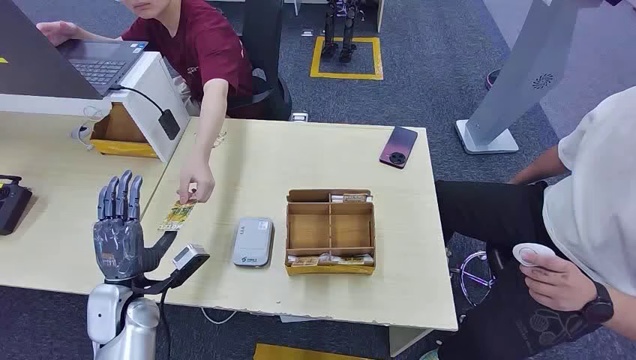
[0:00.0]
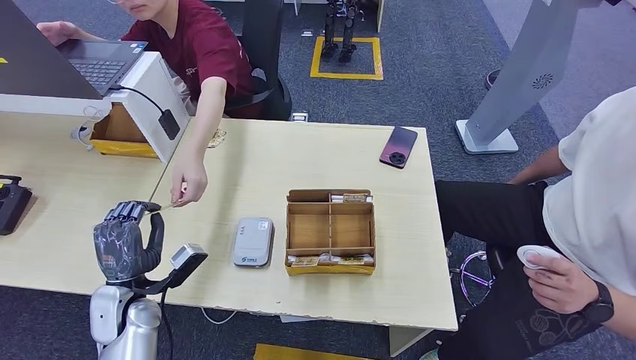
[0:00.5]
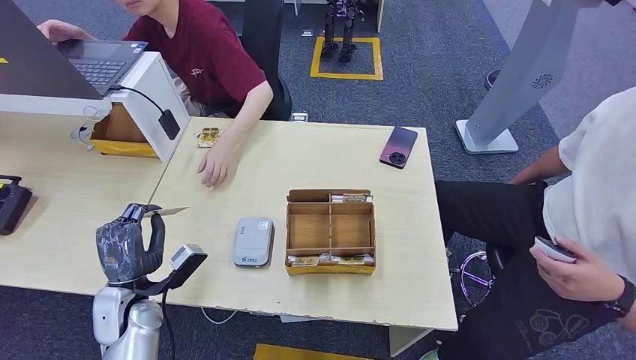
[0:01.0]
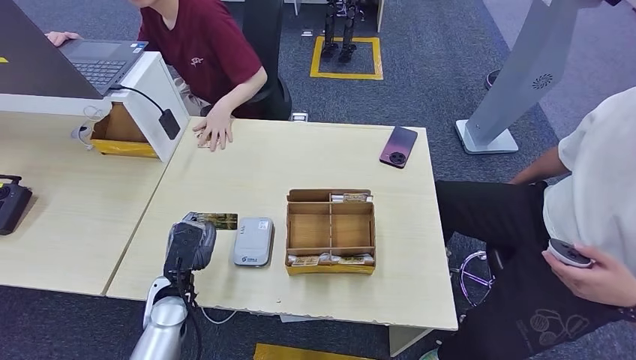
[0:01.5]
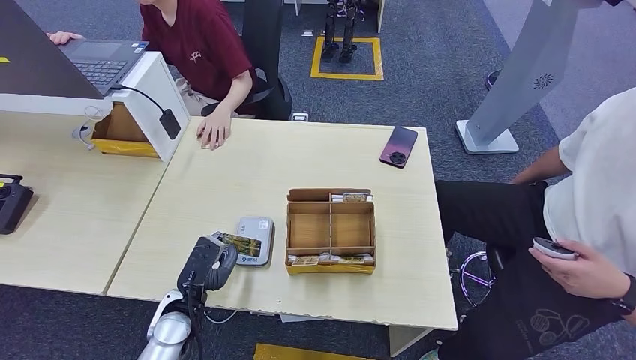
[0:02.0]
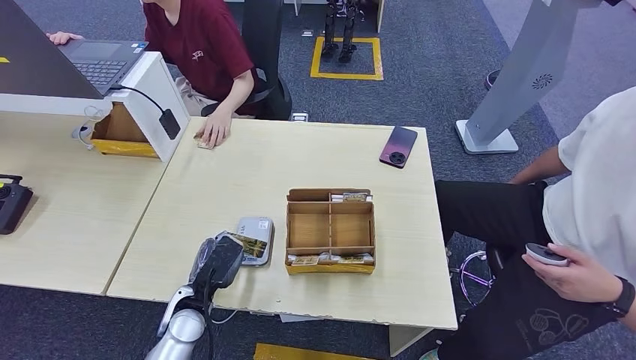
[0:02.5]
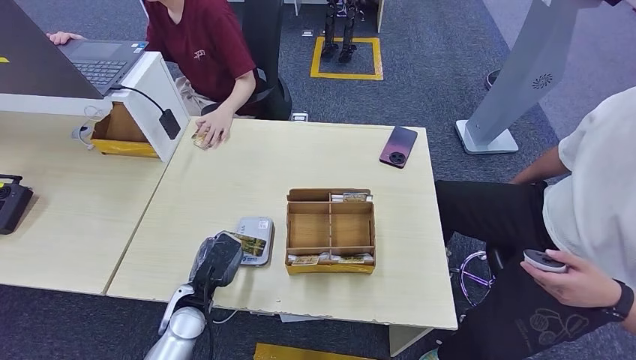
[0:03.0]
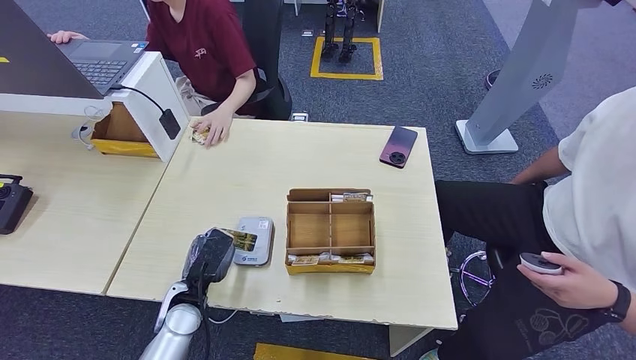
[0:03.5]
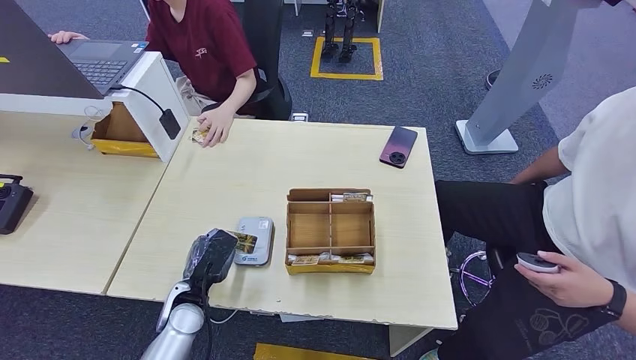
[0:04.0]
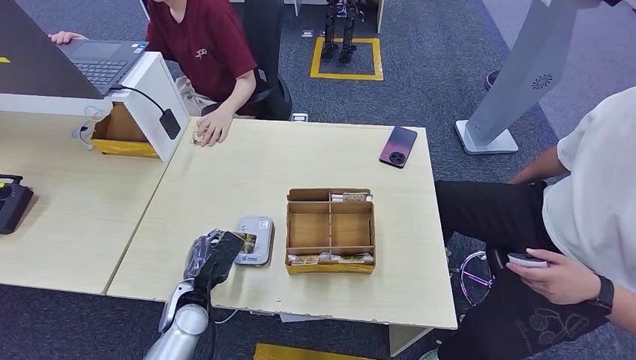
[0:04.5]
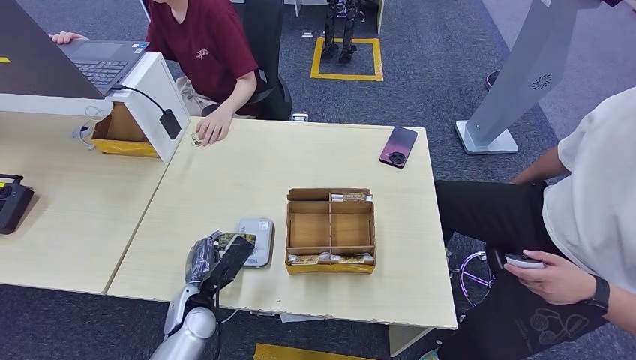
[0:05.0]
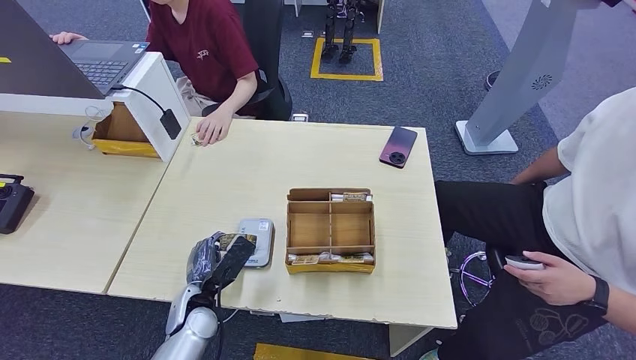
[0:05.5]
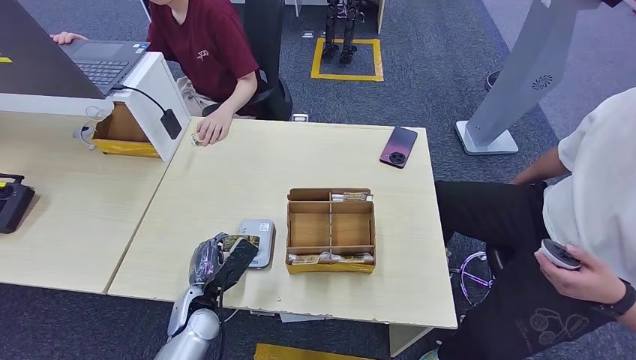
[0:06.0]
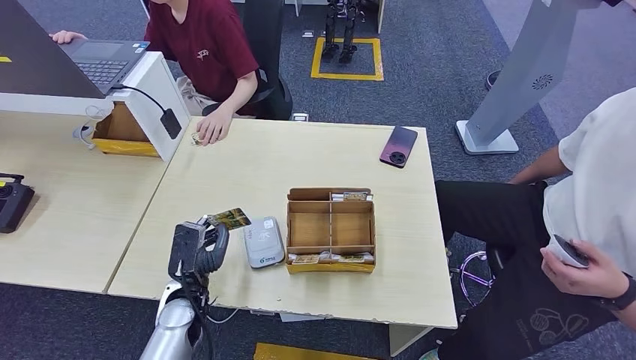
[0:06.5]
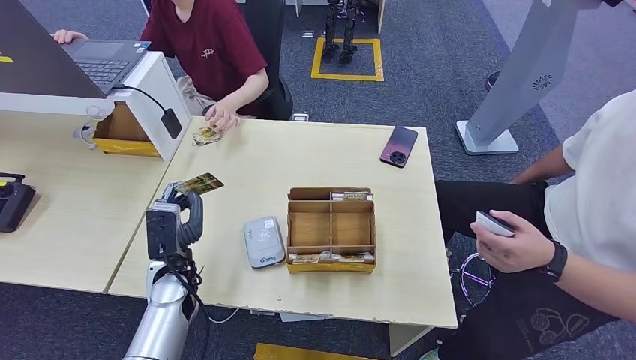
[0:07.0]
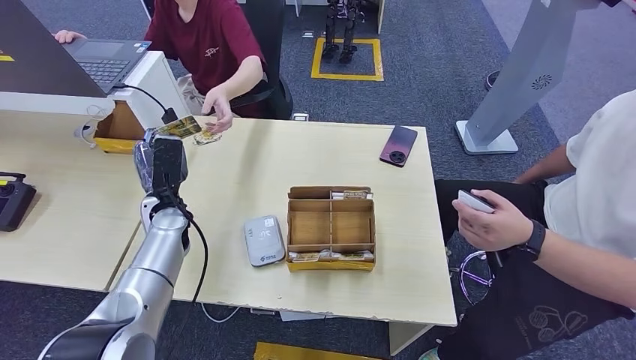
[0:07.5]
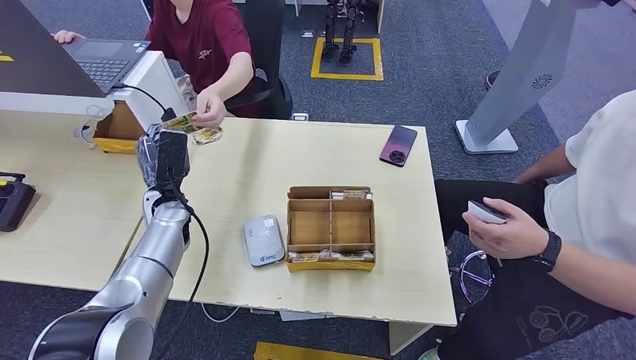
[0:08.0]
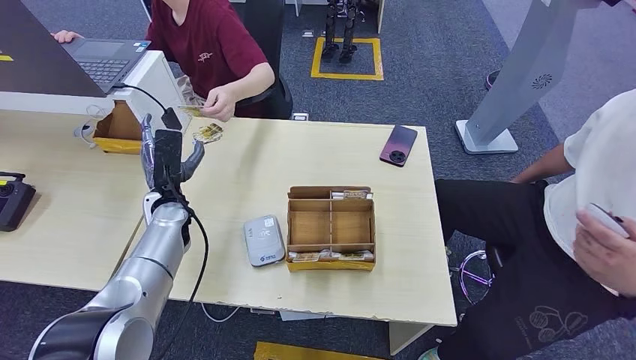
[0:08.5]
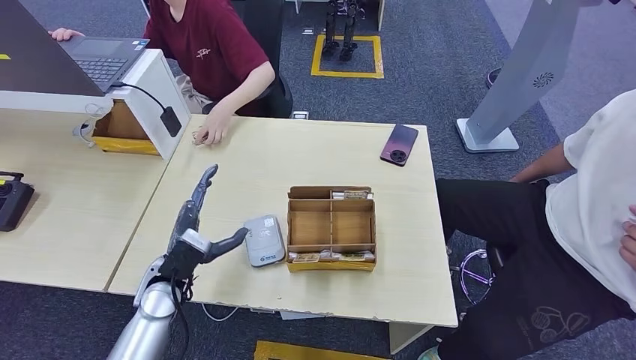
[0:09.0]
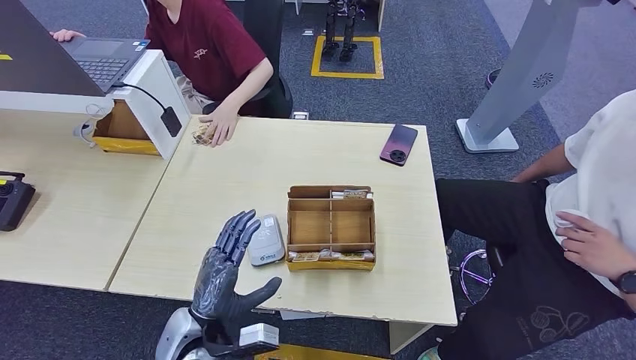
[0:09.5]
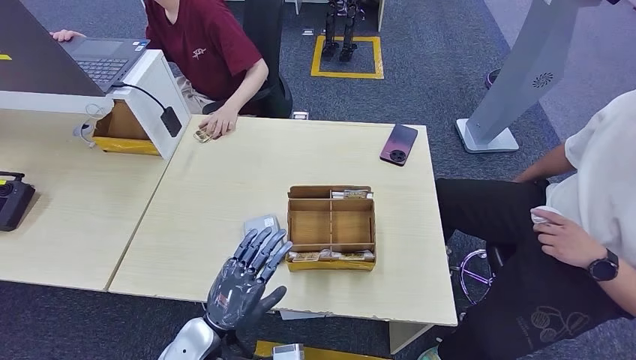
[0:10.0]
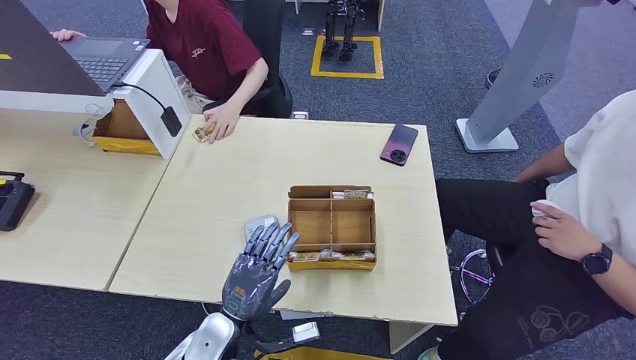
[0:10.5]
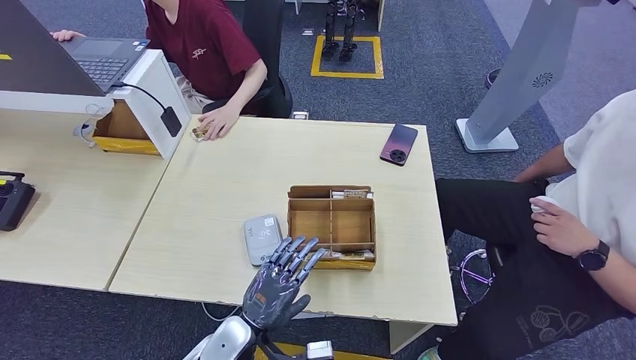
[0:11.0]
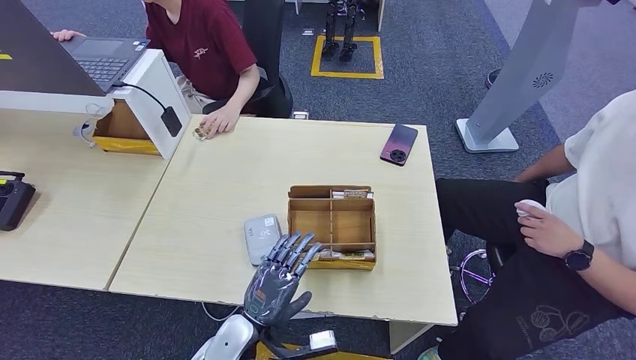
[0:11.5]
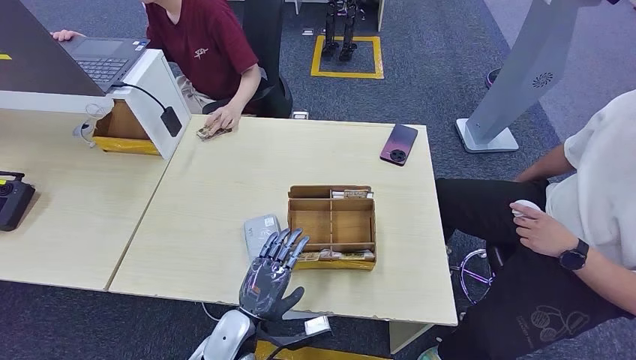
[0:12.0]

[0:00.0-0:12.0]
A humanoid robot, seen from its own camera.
Step, 0:00.0 to 0:00.5: Take the ID card from the person's hand.
Step, 0:01.5 to 0:04.0: Place the ID card on the card reader.
Step, 0:04.5 to 0:08.5: Hand the ID card to the person.
0:02.0 to 0:04.0: The hands move only a little.
0:04.0 to 0:06.0: The hands make only small movements.
0:06.0 to 0:08.0: The left hand travels forward, upward and to the left by some 20 cm.
0:08.0 to 0:10.0: The left hand goes about 25 cm backward and to the right.
0:10.0 to 0:12.0: The left hand changes place by roughly 5 cm.

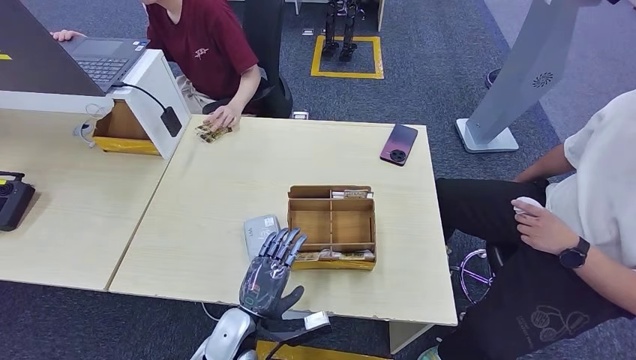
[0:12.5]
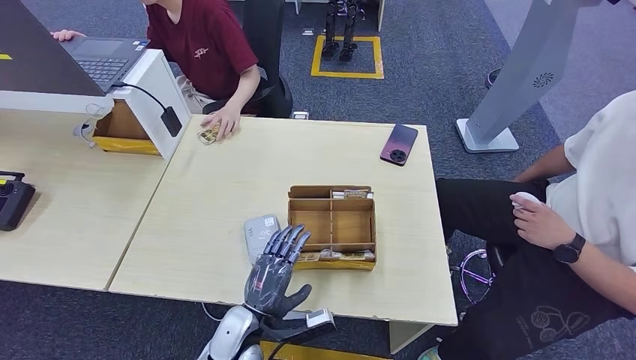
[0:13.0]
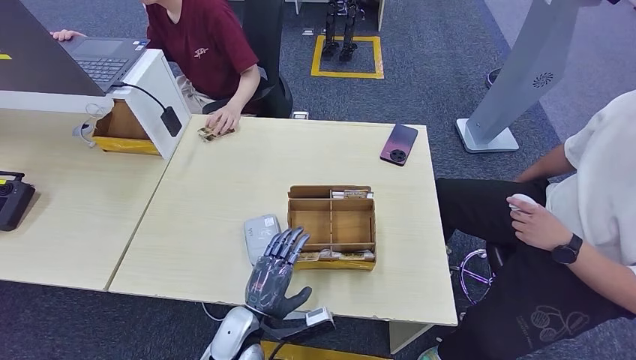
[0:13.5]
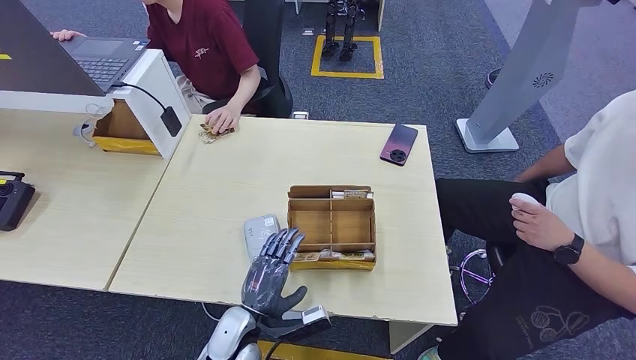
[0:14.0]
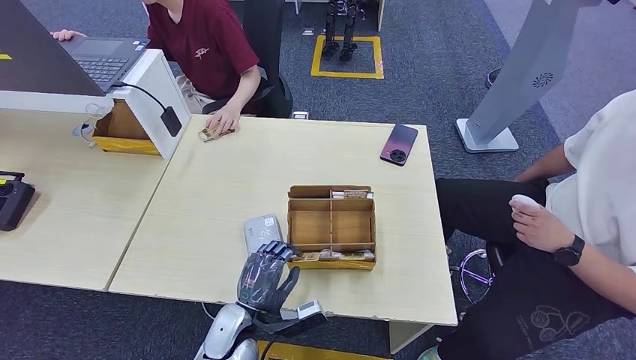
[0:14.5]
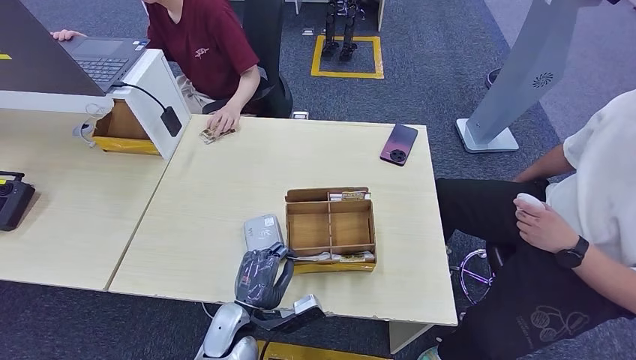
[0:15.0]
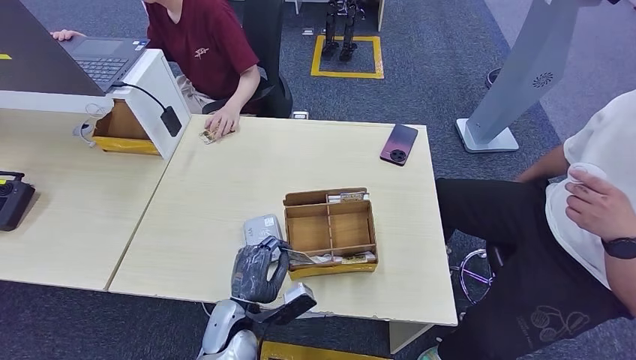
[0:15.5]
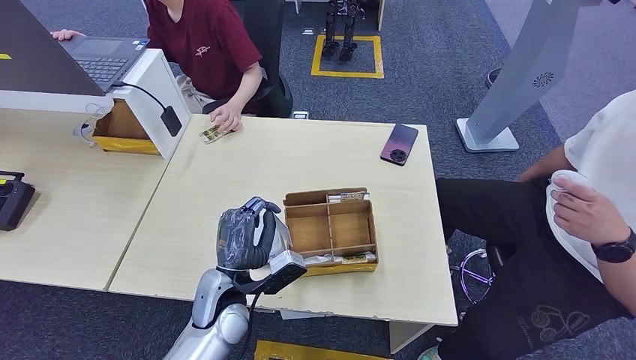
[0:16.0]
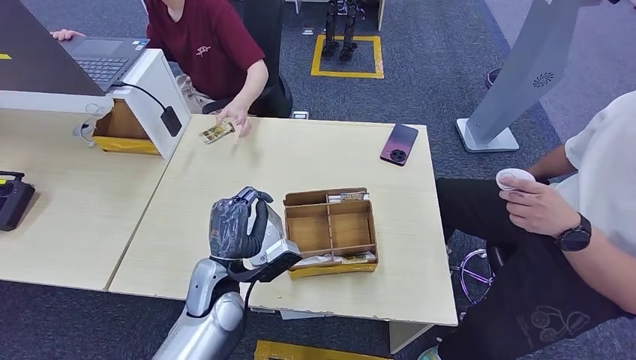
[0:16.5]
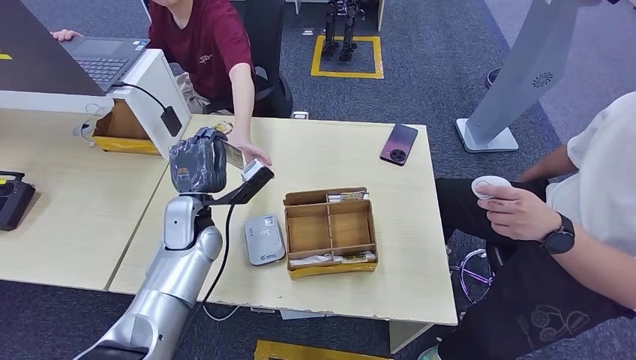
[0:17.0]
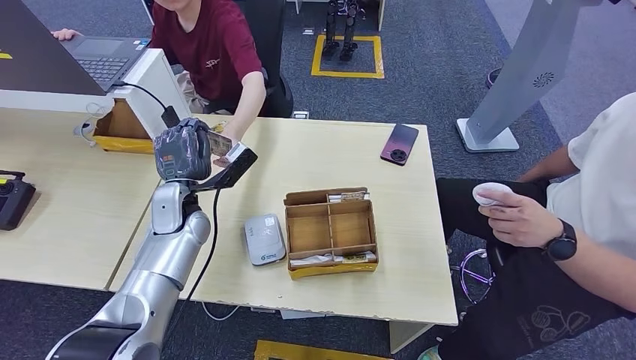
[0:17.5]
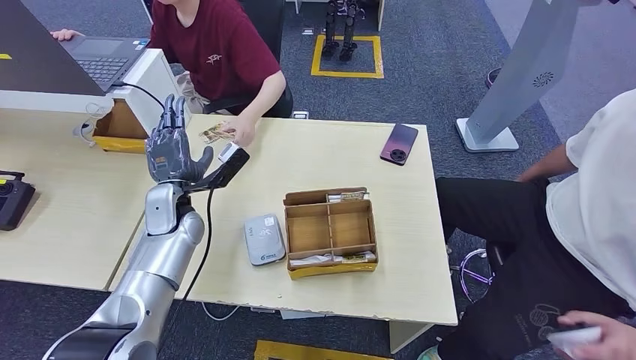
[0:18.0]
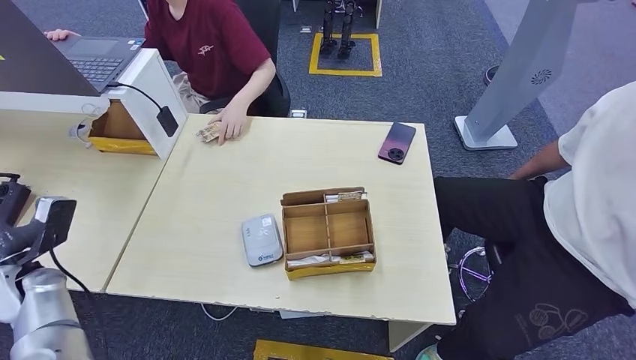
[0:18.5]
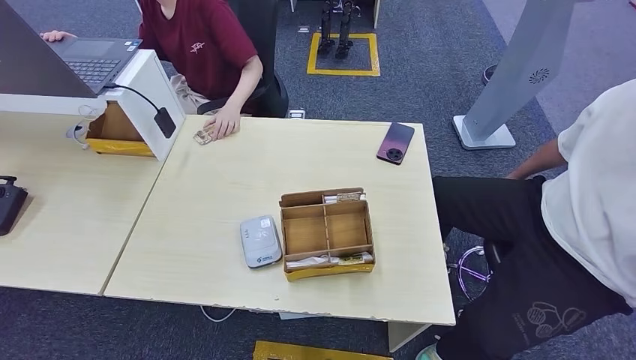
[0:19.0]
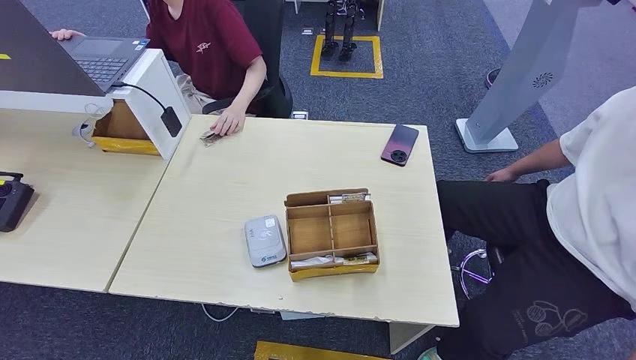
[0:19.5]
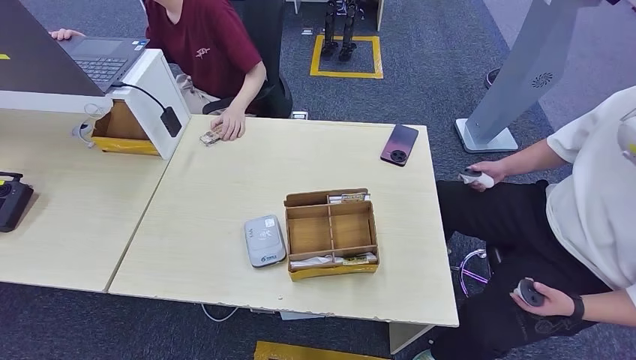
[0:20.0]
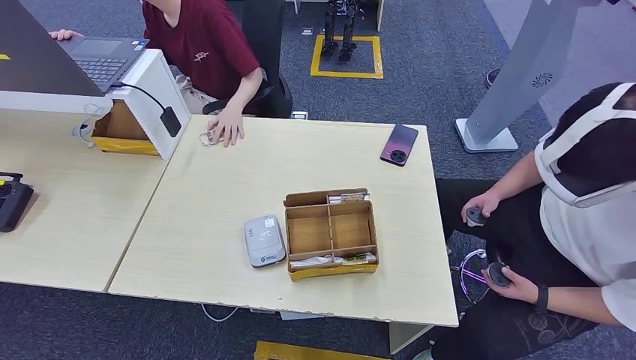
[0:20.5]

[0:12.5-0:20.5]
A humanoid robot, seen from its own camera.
Step, 0:12.5 to 0:15.5: Pick up the room key from the key card box.
Step, 0:16.5 to 0:20.5: Hand the room key to the person.
0:12.5 to 0:14.5: The hands stay close to where they were, moving slightly.
0:14.5 to 0:16.5: The left hand shifts about 10 cm upward and forward.
0:18.5 to 0:20.5: The right hand heads backward, covering roughly 5 cm; the left hand is displaced backward, downward and to the right by approximately 40 cm.
